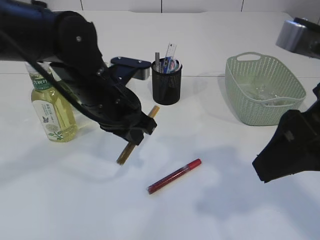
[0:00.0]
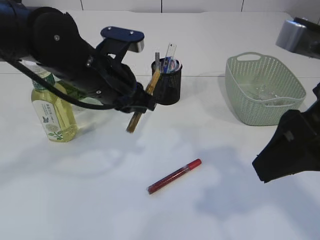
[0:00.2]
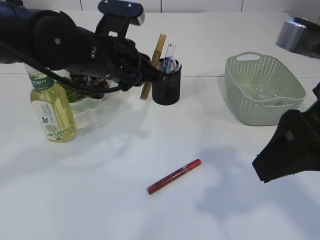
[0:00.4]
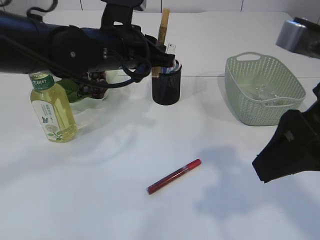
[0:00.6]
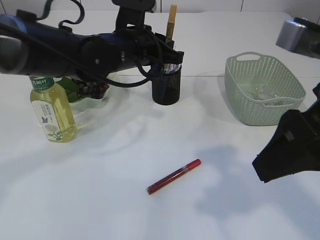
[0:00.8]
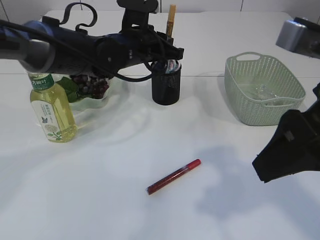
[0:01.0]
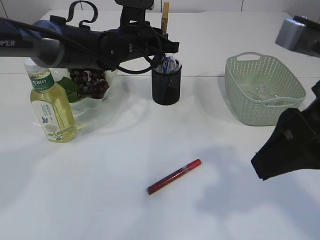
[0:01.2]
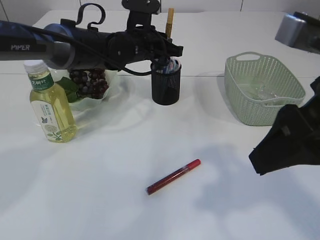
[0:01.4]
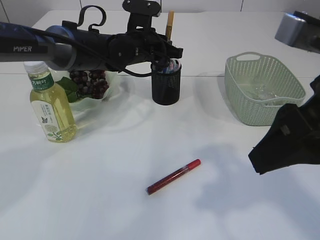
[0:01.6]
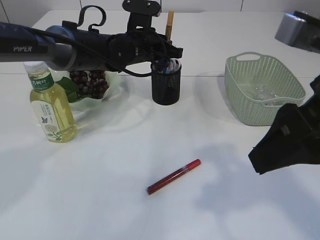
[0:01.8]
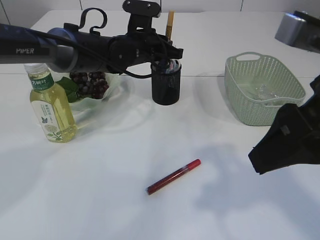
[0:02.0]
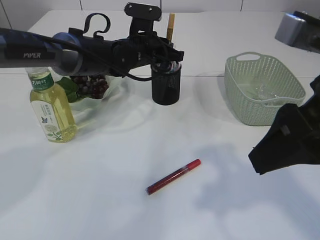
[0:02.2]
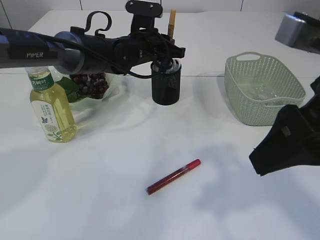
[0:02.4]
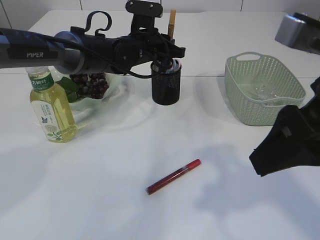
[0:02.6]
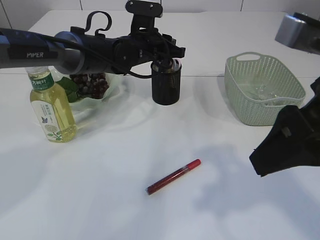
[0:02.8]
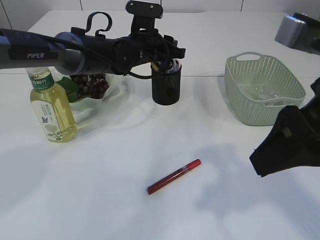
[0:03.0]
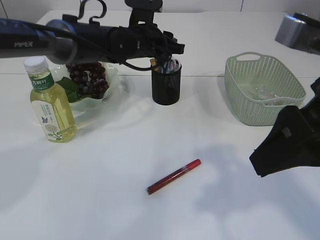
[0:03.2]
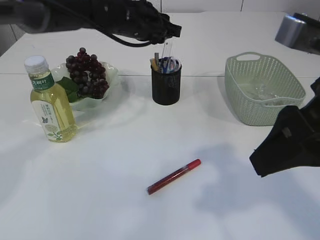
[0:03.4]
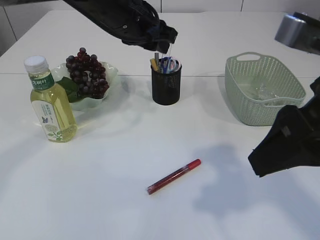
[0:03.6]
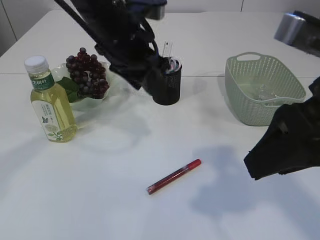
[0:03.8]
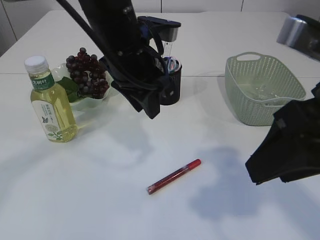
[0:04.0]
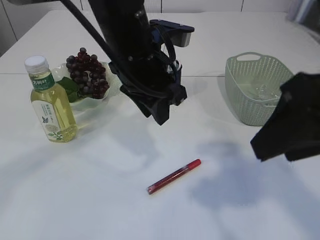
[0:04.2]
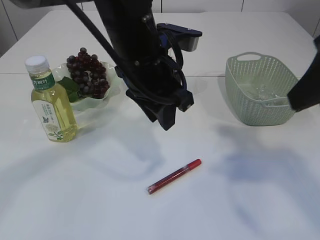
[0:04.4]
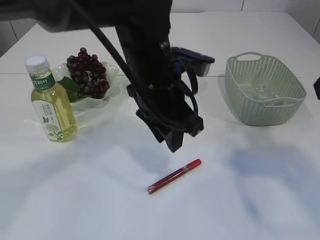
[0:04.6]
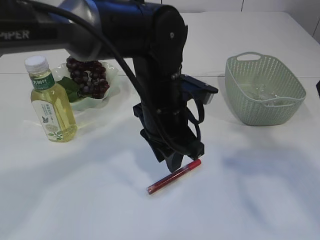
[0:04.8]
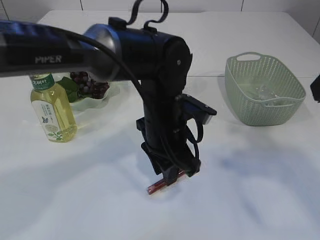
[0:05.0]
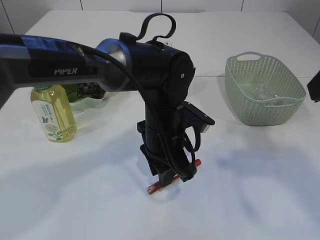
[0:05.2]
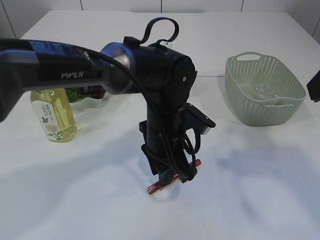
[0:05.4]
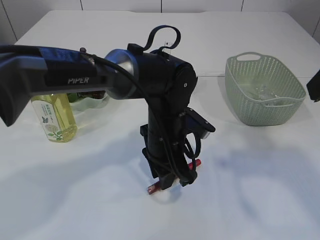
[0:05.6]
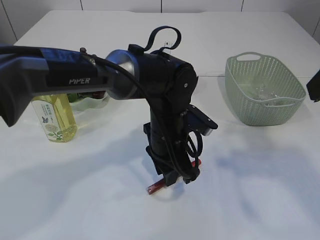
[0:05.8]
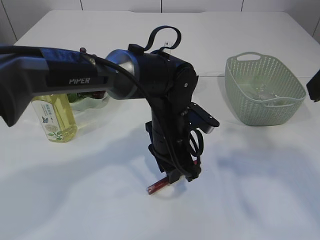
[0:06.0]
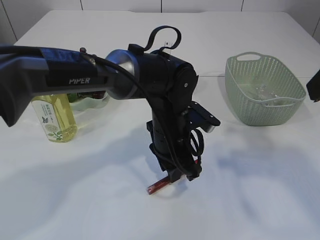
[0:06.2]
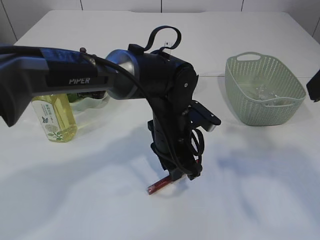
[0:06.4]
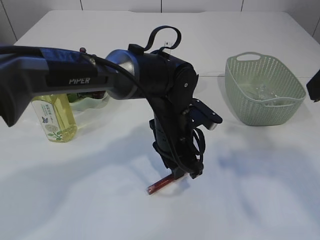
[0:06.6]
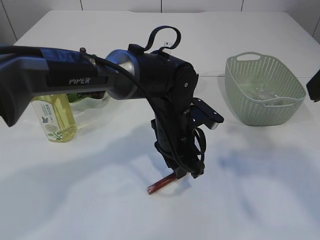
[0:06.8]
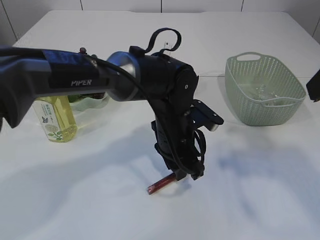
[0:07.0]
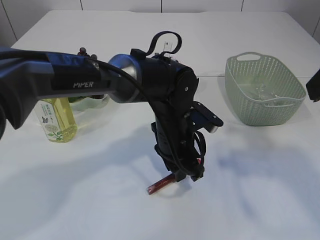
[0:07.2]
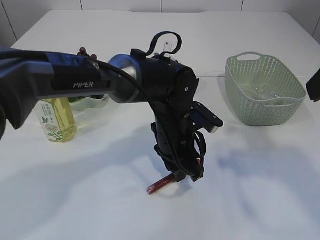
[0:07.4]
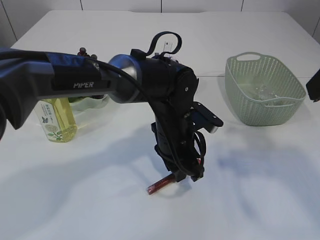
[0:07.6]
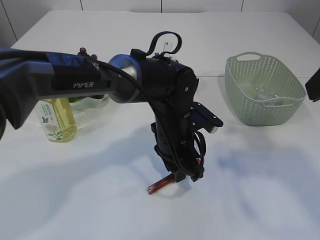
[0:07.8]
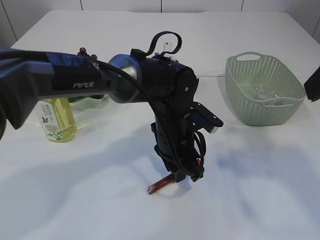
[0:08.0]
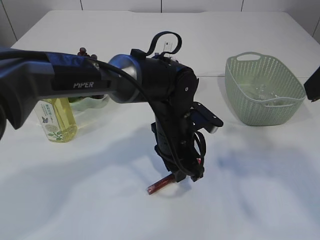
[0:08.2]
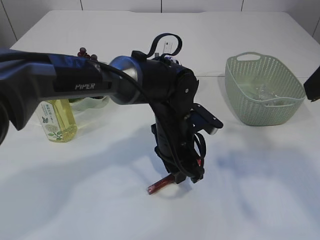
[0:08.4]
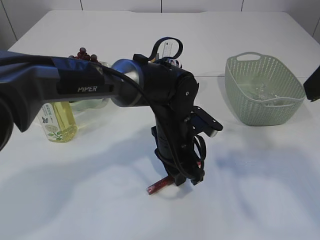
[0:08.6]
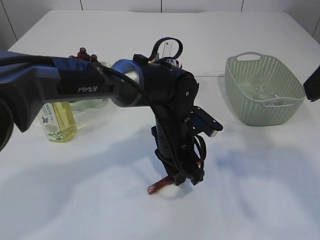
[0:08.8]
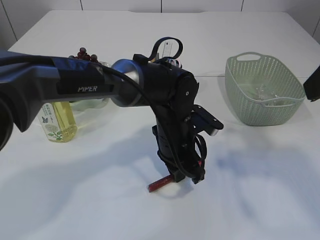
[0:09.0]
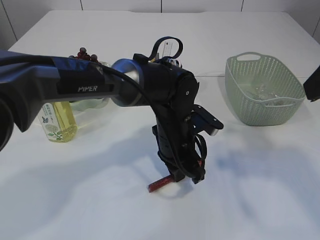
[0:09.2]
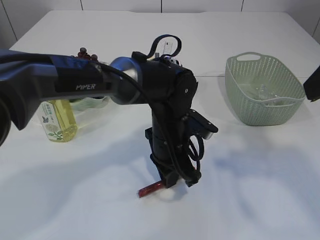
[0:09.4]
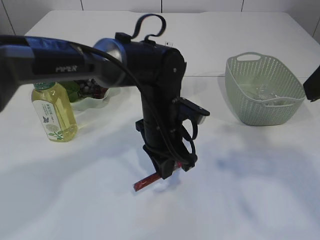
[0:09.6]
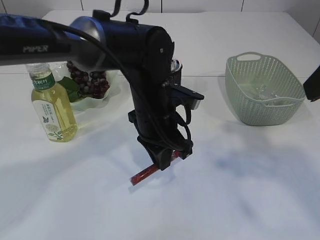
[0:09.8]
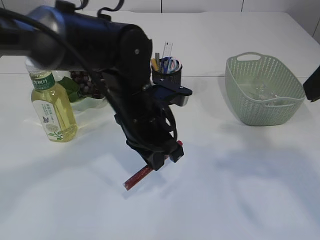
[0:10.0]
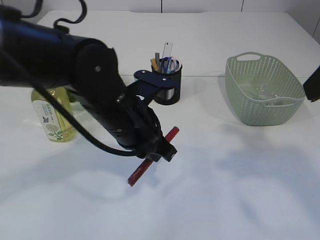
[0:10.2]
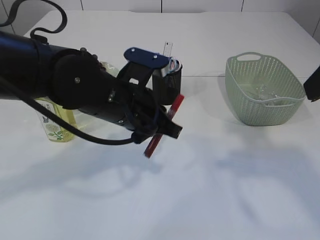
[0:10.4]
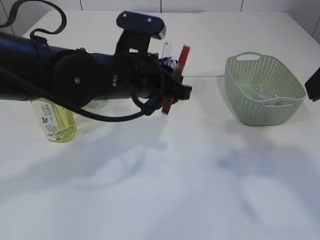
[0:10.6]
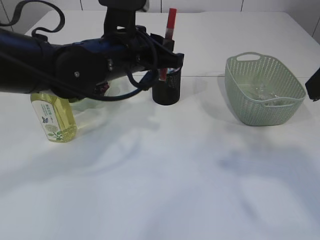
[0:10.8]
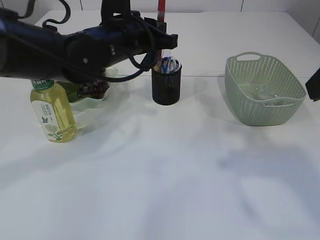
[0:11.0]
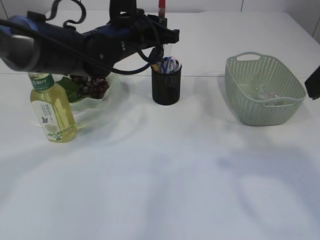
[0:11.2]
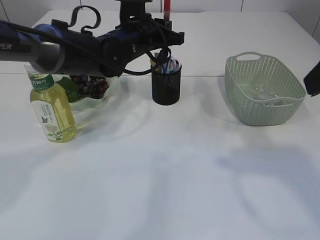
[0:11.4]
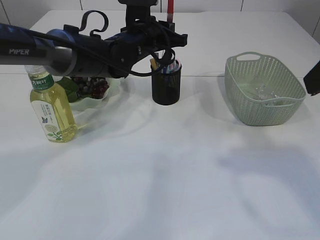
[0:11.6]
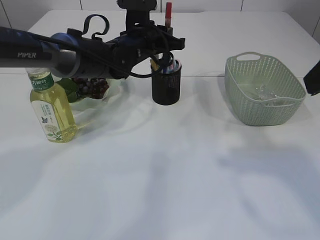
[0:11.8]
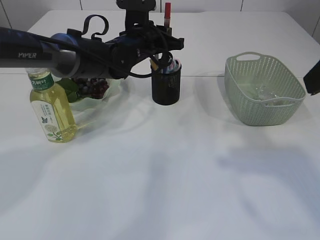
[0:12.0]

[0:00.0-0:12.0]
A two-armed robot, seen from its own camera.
Step, 0:00.2 to 0:03.6: place the yellow glue into the pen holder.
Step, 0:03.8 to 0:10.2: pick up the red glue.
0:00.0 to 0:01.6: The left gripper is displaced forward by about 15 cm.
0:01.6 to 0:03.0: The left gripper opens its fingers.
0:03.0 to 0:04.4: The right gripper shifts by some 5 cm. Meanwhile the left gripper moves backward and upward, approximately 20 cm.
0:04.4 to 0:06.0: The left gripper is displaced downward by about 15 cm.
0:06.0 to 0:07.6: The grippers make only small movements.
0:07.6 to 0:09.0: Both grippers stay about where they are.
0:09.0 to 0:10.4: The left gripper moves upward and to the left, roughly 10 cm.
0:10.4 to 0:12.0: The left gripper moves forward, some 20 cm.

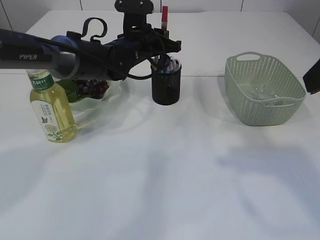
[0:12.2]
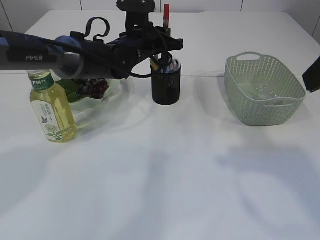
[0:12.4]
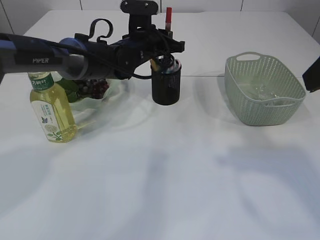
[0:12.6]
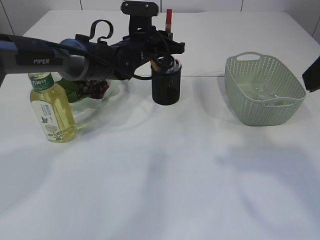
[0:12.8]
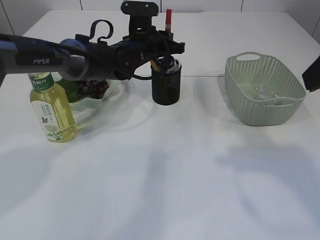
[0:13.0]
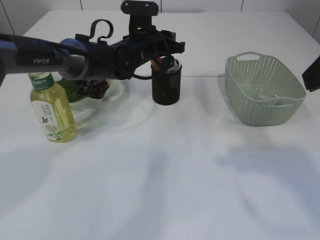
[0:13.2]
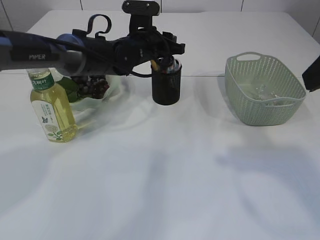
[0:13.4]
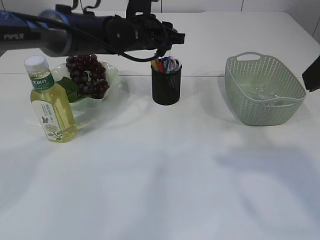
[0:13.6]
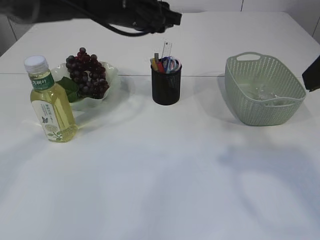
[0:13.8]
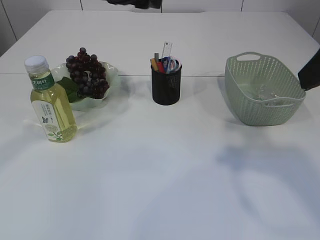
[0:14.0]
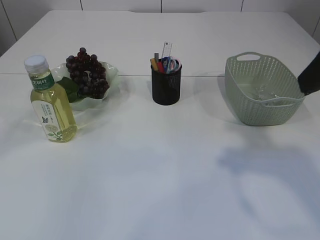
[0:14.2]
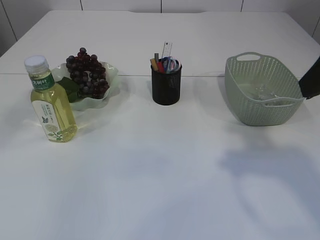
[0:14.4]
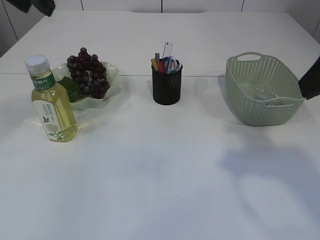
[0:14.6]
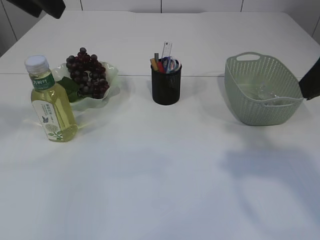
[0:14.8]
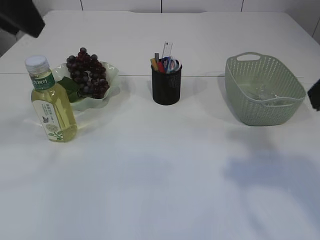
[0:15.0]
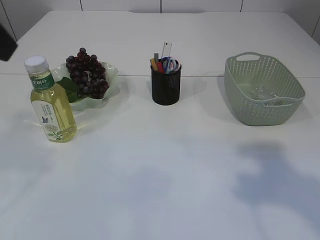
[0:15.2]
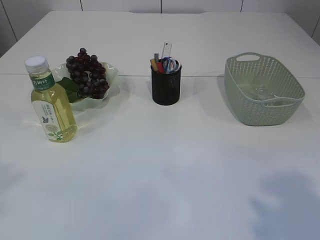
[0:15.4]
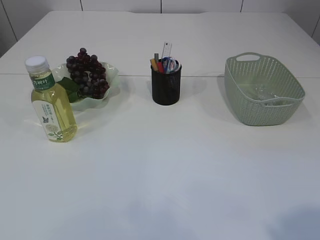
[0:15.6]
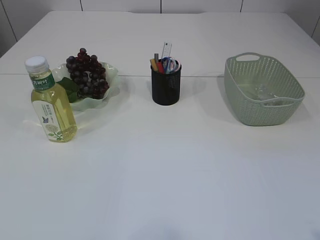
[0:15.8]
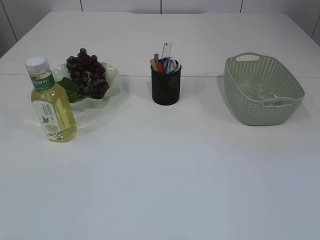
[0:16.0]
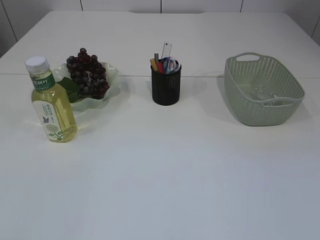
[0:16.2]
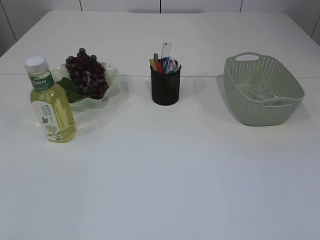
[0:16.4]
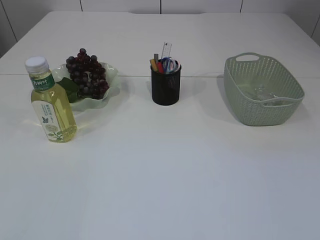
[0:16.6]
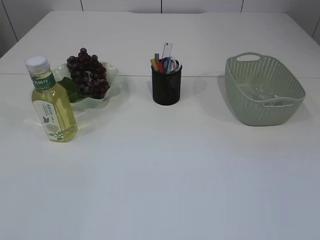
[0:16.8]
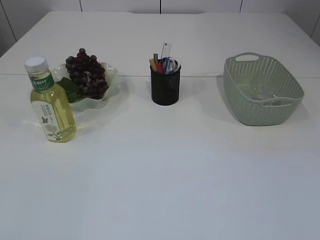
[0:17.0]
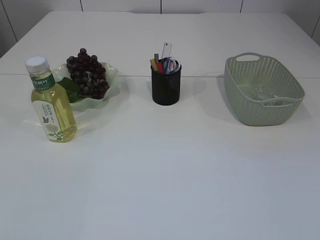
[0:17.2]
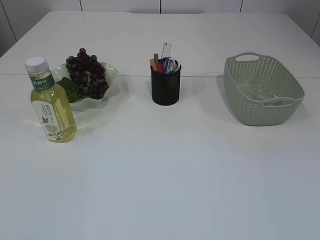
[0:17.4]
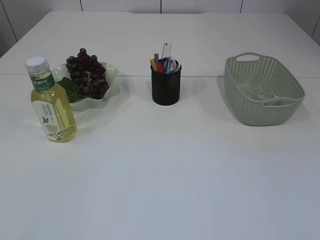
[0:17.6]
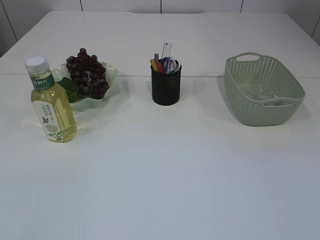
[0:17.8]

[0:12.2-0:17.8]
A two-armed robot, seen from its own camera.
0:12.2 to 0:13.6: The left gripper opens its fingers.
0:13.6 to 0:15.0: The left gripper is displaced backward, upward and to the left by about 30 cm.
0:15.0 to 0:16.4: The right gripper travels backward and downward by some 20 cm, while the left gripper shifts some 35 cm backward, to the left and downward.

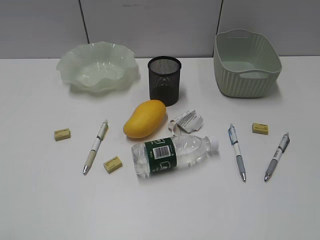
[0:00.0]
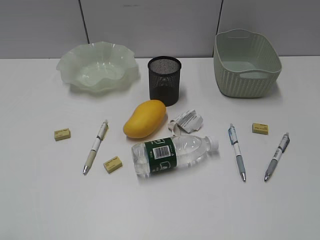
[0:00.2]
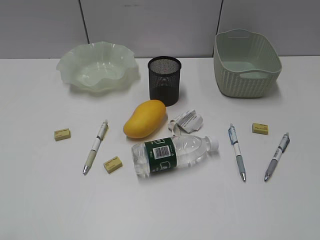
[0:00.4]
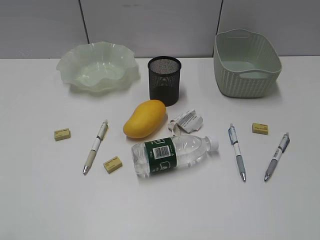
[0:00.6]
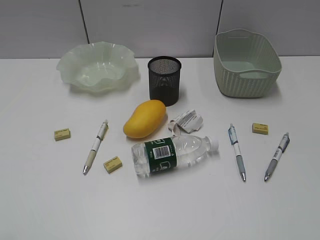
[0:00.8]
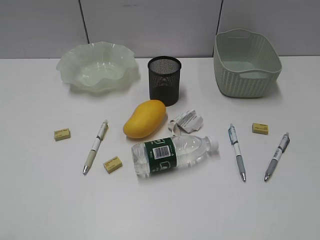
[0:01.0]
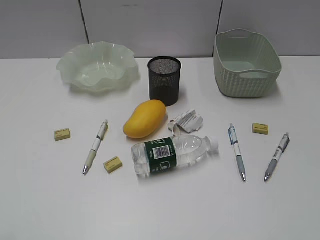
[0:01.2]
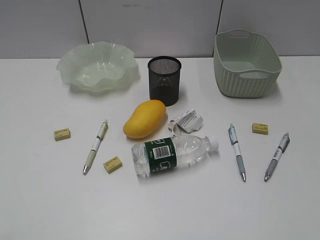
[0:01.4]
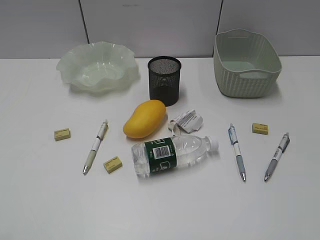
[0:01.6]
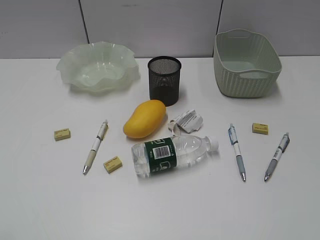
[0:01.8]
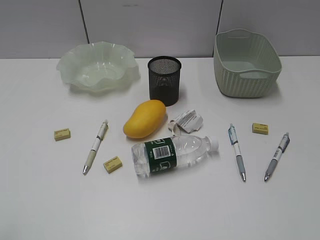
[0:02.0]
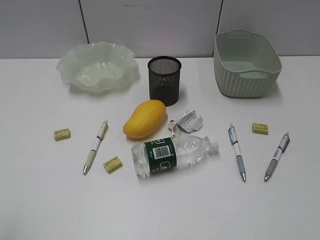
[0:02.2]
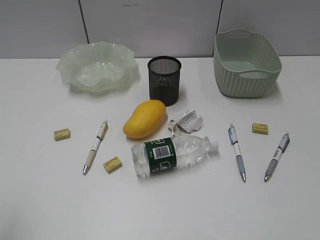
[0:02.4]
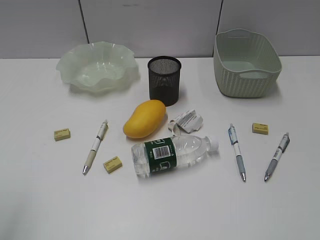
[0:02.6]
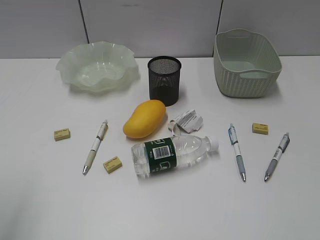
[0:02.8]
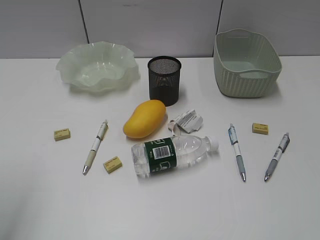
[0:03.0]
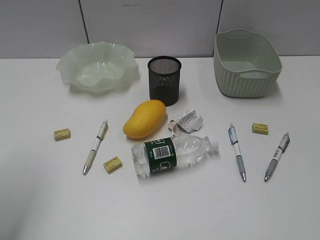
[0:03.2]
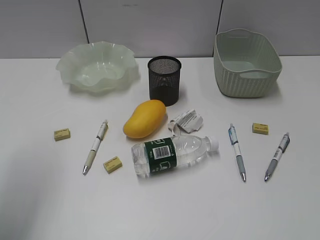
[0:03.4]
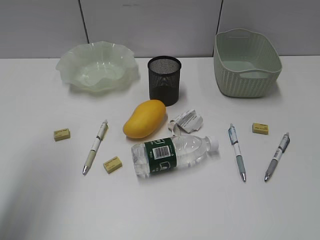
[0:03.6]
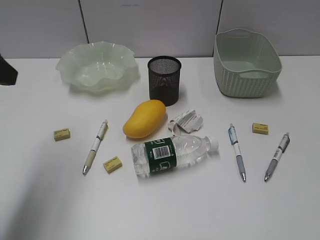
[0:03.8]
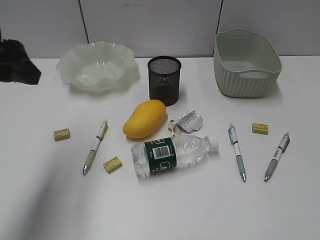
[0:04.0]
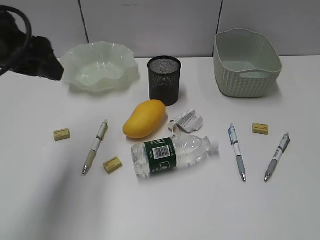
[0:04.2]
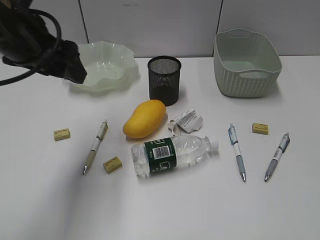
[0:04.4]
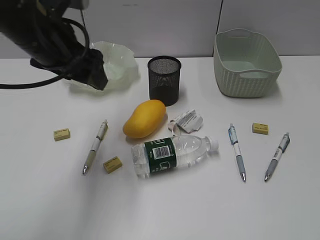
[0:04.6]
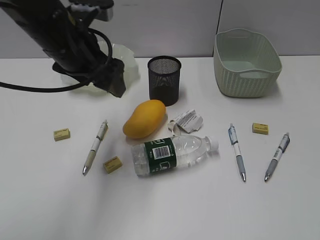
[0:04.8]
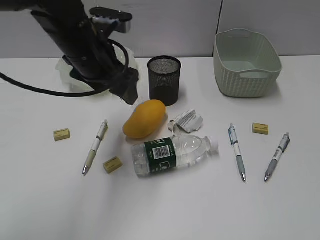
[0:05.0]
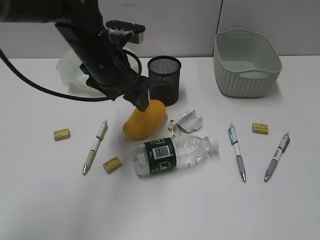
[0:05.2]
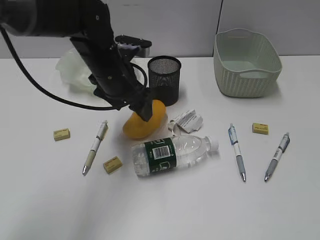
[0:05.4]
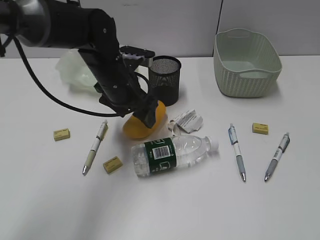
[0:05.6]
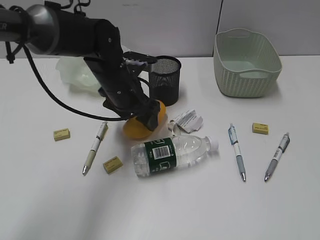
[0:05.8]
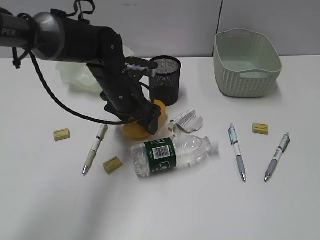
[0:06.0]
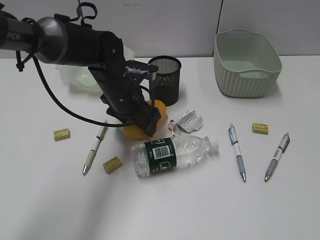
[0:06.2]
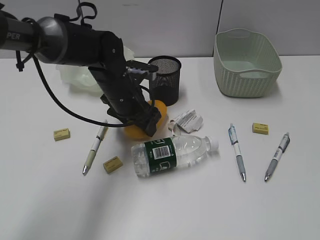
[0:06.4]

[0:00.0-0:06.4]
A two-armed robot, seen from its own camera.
Step, 0:03.8 to 0:06.4: Grasp the mango with left gripper.
0:01.6 to 0:03.2: The left gripper shifts approximately 15 cm forward.
0:03.2 to 0:04.8: The left gripper travels to the right and forward by some 25 cm.
0:04.8 to 0:06.4: The left gripper moves downward, to the right and forward, about 15 cm.
